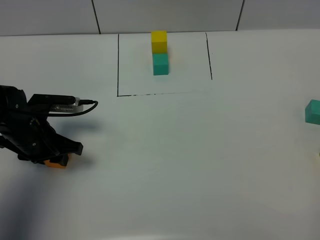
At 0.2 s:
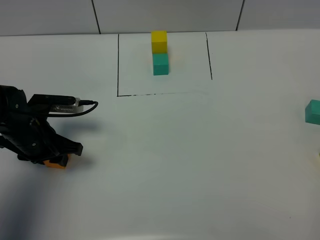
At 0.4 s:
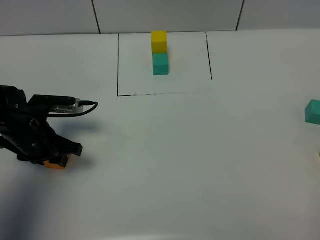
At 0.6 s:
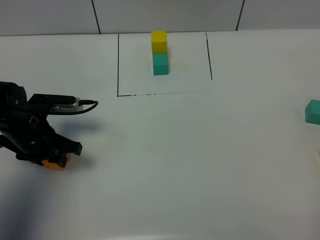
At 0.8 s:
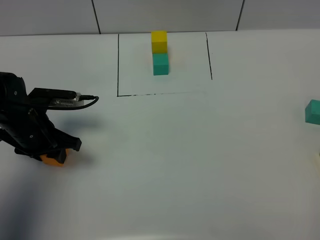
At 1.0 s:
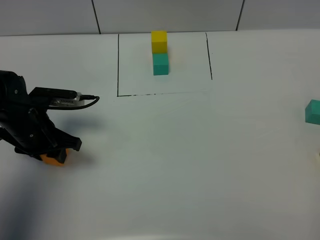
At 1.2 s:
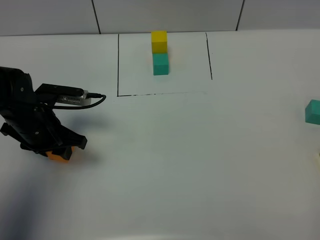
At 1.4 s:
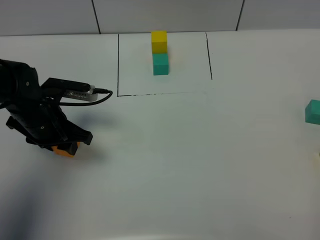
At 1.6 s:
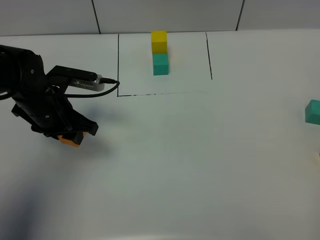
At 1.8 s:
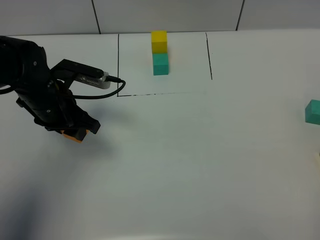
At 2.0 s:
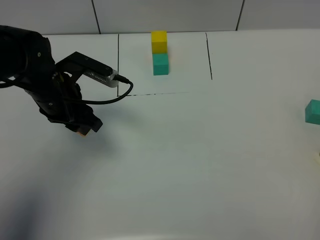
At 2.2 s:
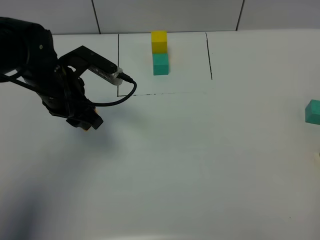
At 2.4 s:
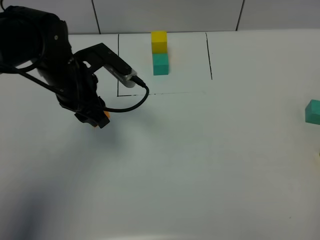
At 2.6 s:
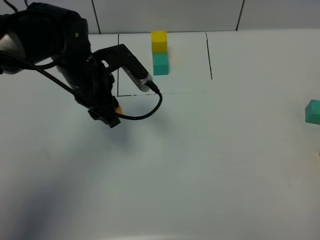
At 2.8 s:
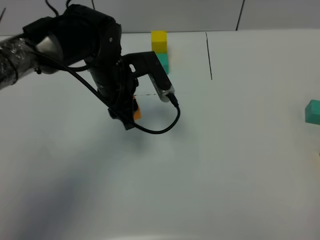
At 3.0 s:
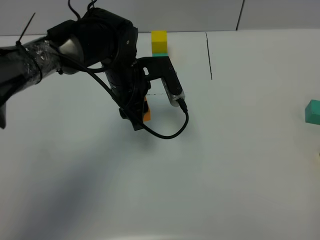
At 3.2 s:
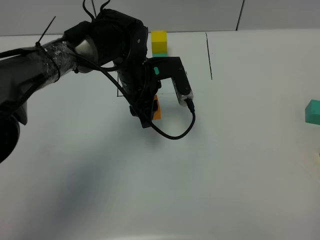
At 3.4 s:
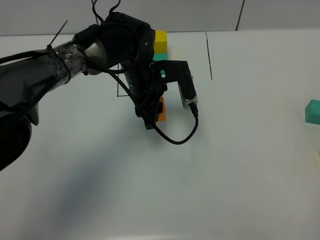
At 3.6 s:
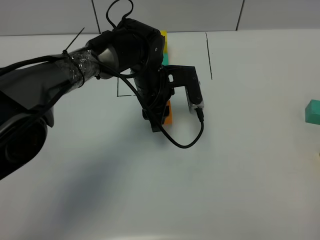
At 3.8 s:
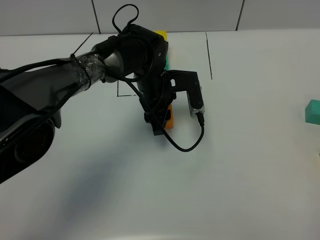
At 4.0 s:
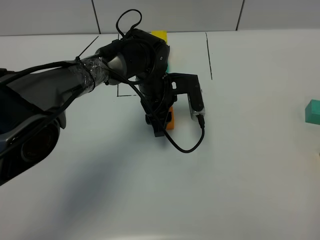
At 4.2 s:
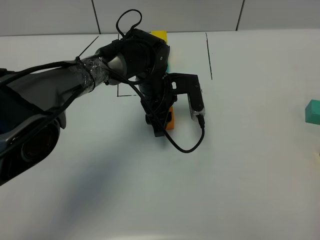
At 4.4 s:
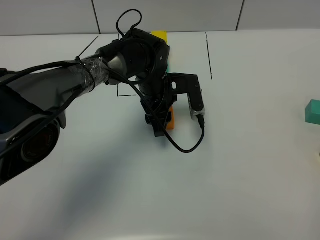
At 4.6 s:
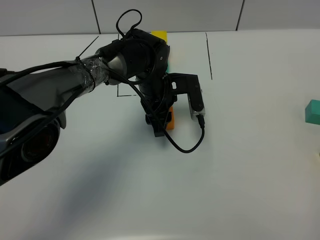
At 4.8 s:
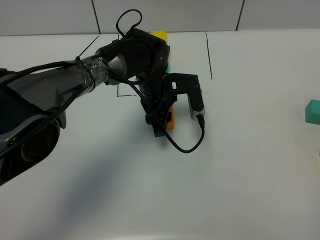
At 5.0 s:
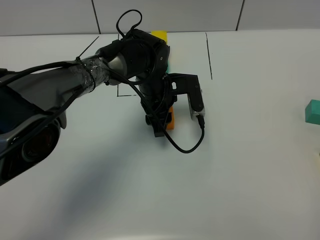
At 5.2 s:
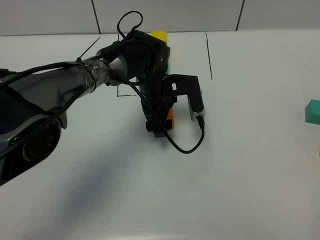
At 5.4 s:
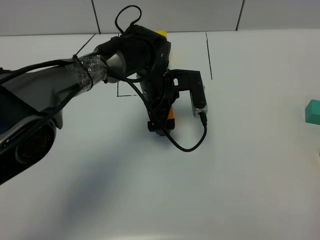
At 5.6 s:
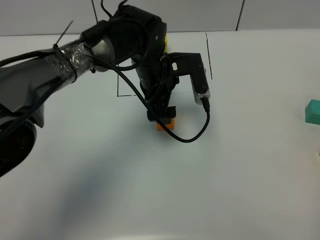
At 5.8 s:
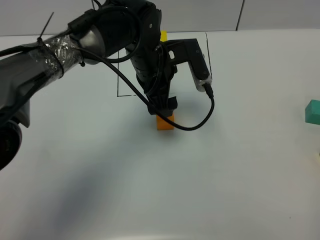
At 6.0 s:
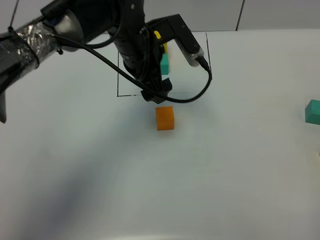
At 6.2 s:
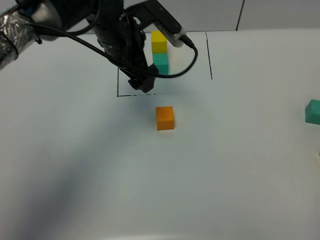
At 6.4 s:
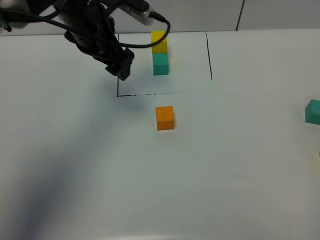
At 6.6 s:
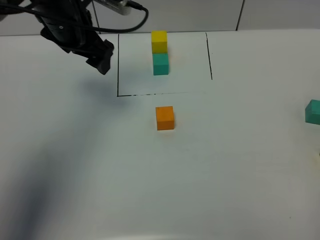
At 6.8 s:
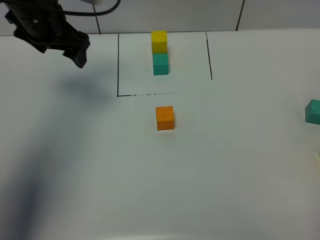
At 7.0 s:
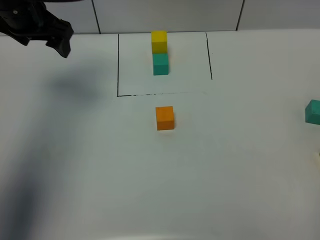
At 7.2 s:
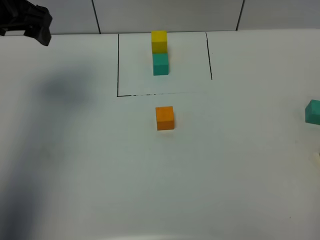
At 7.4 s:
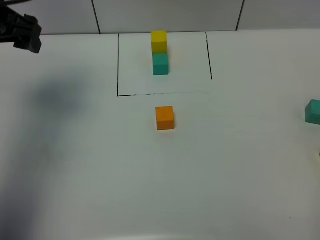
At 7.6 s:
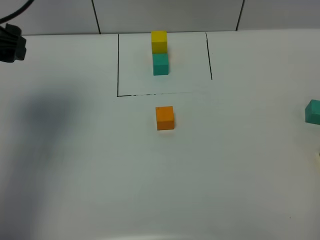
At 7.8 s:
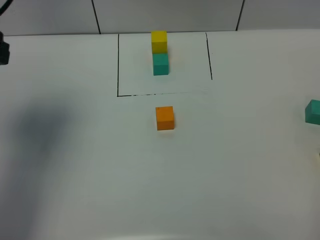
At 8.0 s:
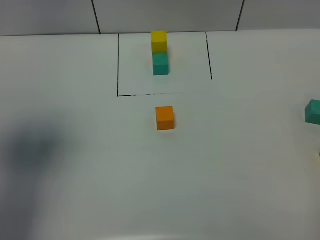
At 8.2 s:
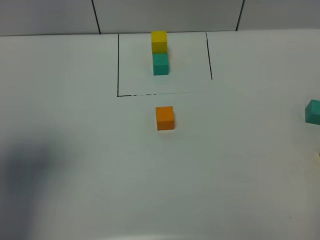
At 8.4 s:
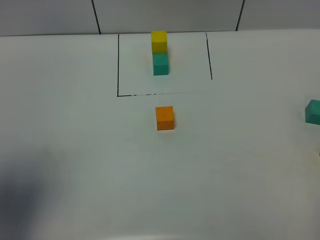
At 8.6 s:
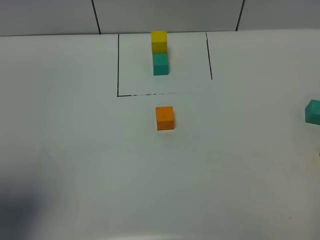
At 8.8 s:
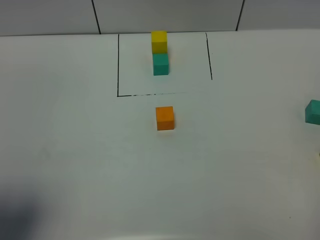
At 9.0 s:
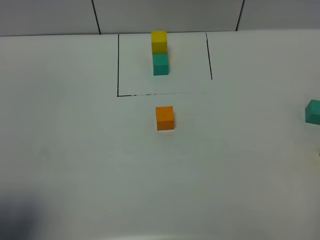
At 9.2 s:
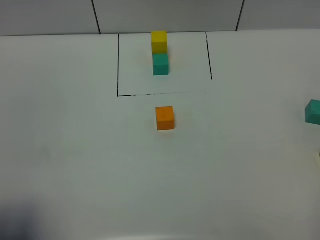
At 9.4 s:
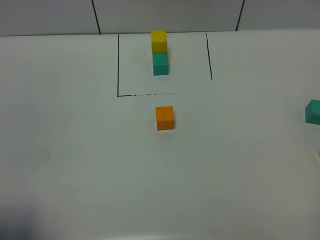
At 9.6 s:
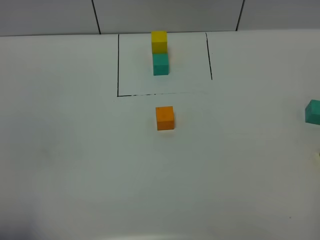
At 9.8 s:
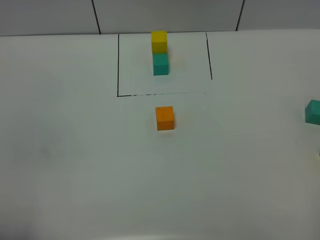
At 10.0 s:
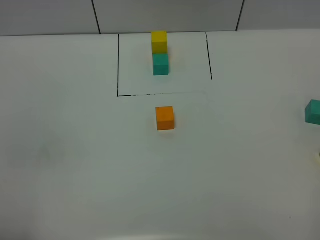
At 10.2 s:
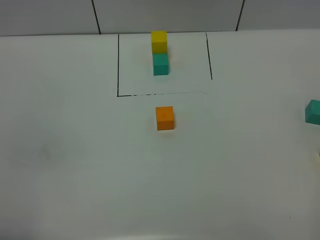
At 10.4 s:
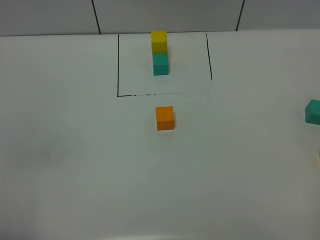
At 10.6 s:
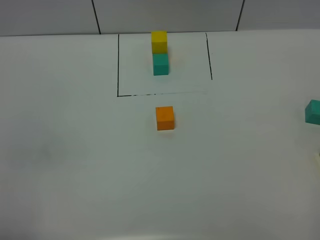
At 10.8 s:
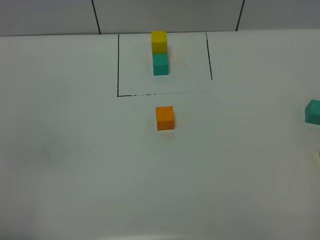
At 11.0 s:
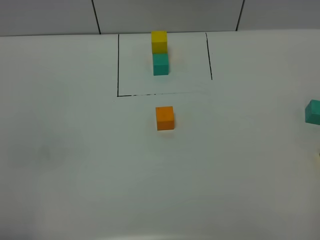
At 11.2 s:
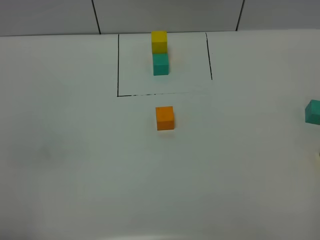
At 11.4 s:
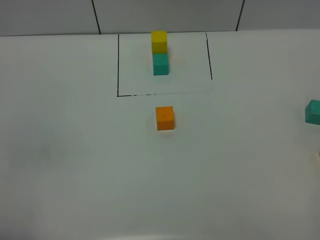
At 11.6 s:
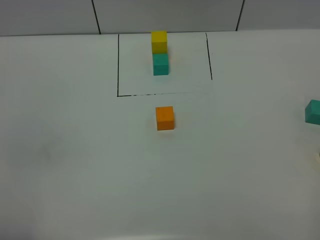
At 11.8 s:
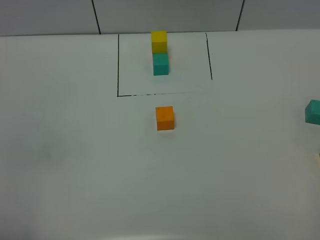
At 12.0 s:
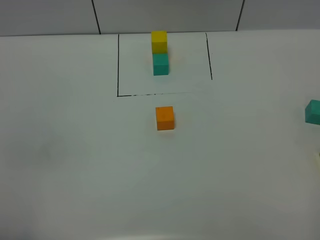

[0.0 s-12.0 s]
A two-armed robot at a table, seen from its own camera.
Task of the whole recording: According to the building block template in front, assemble the scattered blocks together.
Step, 0.0 to 5.0 s: Put the orange build block in the center of the table.
0.0 to 1.6 s: The left gripper travels upward by some 5 cm.
1.6 to 3.0 s: The left gripper goes about 15 cm to the right and forward.
3.0 to 4.4 s: The left gripper is displaced downward by some 5 cm.
4.4 to 6.0 s: The left gripper is displaced upward by some 10 cm, and opens up.
6.0 to 7.6 s: The left gripper moves to the left and upward, approximately 25 cm.
7.6 to 9.0 s: The left gripper is displaced backward by some 25 cm.
9.0 to 10.4 s: The left gripper goes about 10 cm backward and downward.
10.4 to 12.0 s: Both grippers stay put.

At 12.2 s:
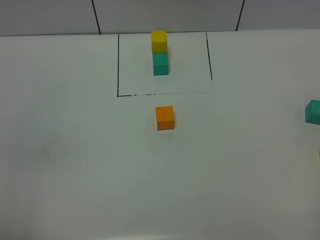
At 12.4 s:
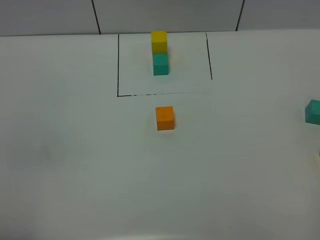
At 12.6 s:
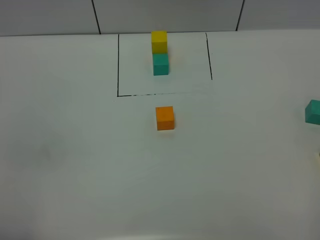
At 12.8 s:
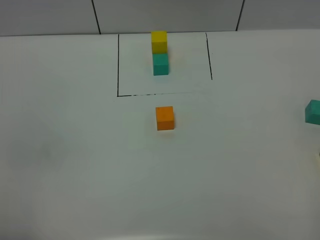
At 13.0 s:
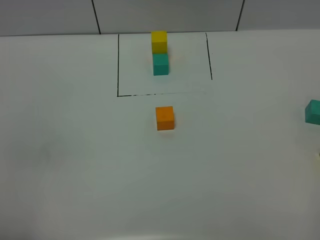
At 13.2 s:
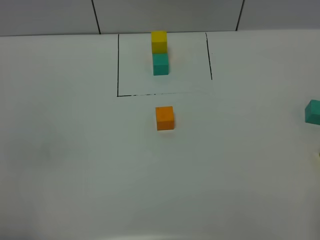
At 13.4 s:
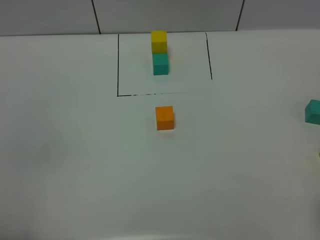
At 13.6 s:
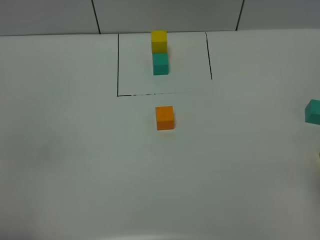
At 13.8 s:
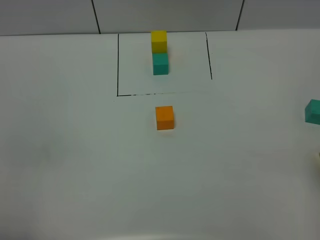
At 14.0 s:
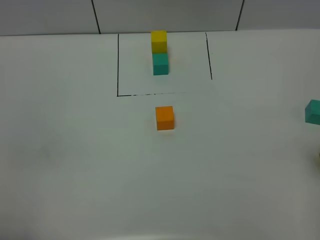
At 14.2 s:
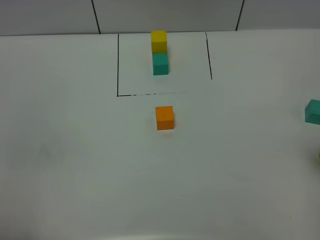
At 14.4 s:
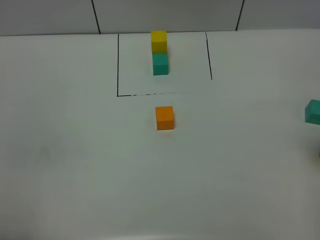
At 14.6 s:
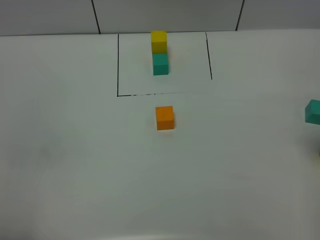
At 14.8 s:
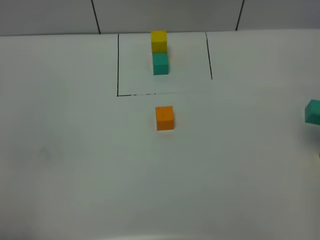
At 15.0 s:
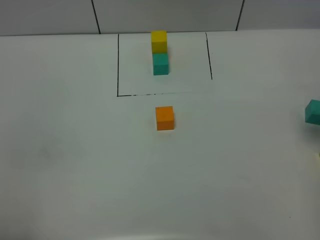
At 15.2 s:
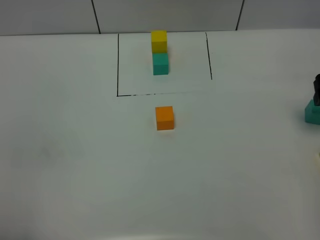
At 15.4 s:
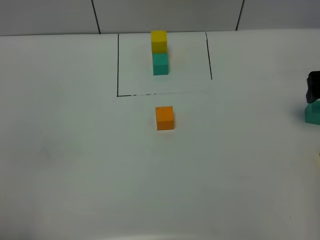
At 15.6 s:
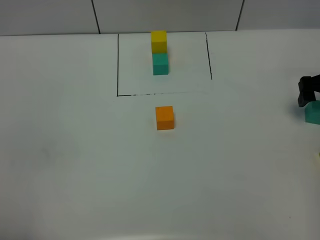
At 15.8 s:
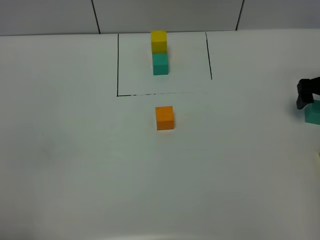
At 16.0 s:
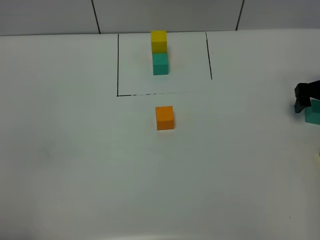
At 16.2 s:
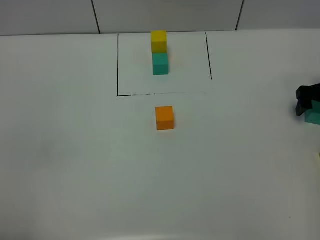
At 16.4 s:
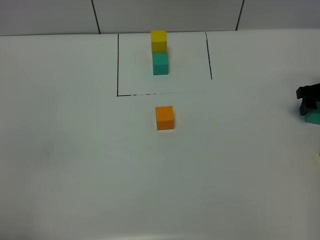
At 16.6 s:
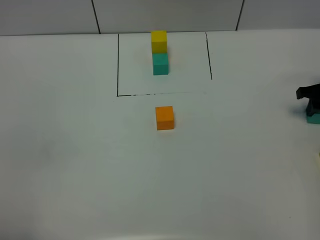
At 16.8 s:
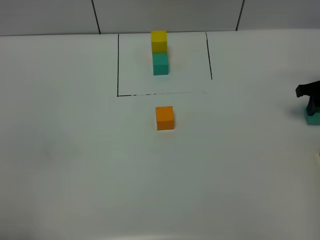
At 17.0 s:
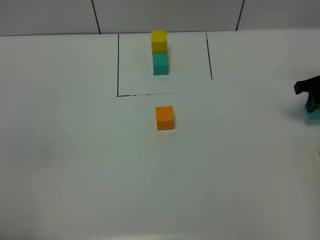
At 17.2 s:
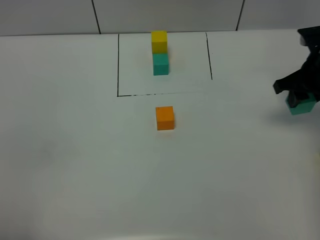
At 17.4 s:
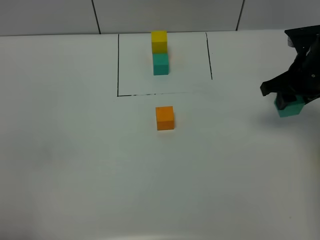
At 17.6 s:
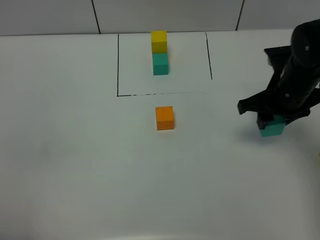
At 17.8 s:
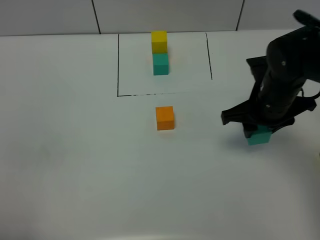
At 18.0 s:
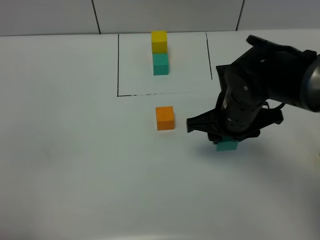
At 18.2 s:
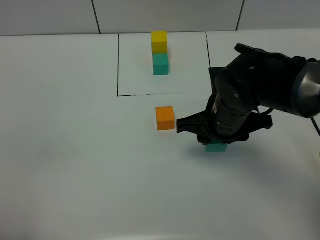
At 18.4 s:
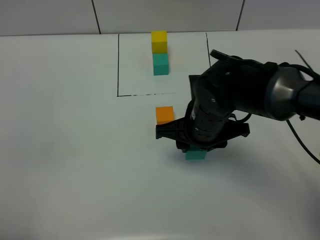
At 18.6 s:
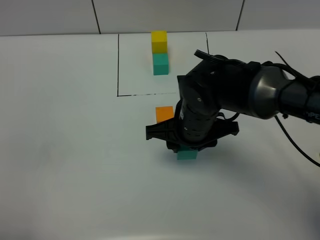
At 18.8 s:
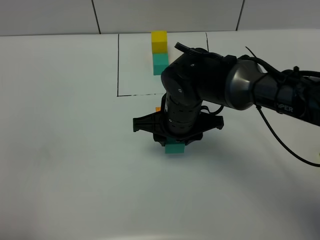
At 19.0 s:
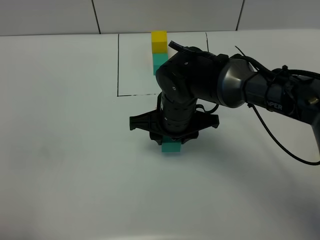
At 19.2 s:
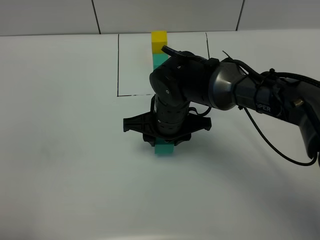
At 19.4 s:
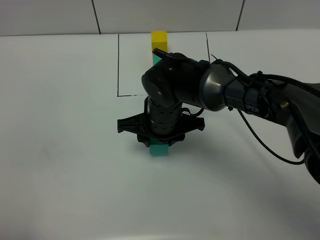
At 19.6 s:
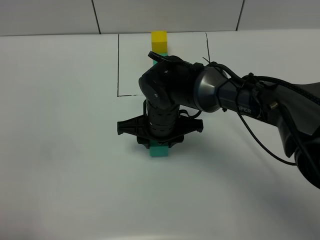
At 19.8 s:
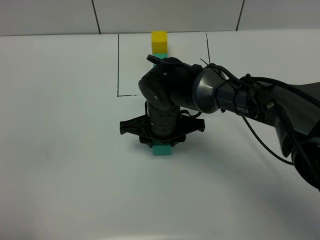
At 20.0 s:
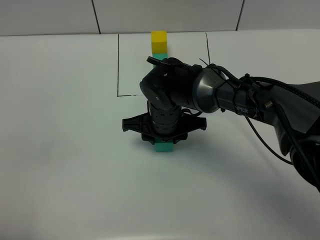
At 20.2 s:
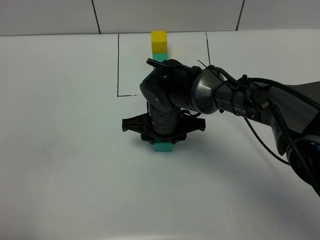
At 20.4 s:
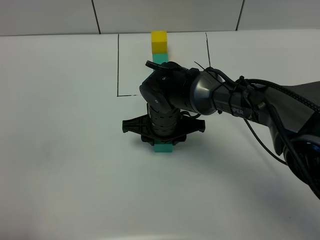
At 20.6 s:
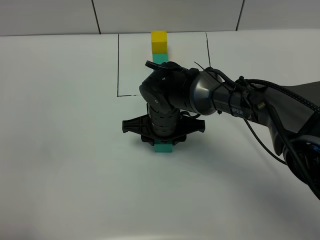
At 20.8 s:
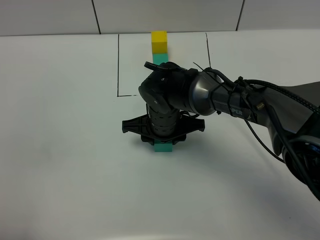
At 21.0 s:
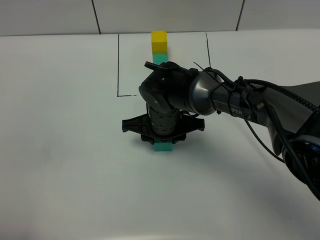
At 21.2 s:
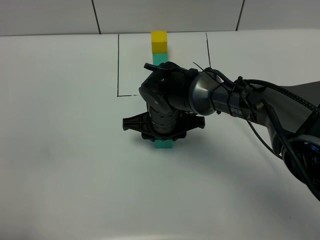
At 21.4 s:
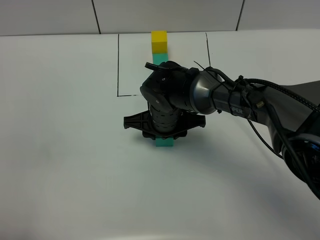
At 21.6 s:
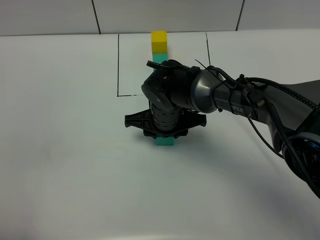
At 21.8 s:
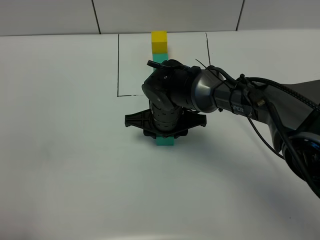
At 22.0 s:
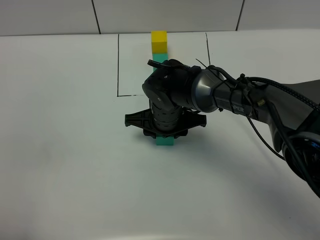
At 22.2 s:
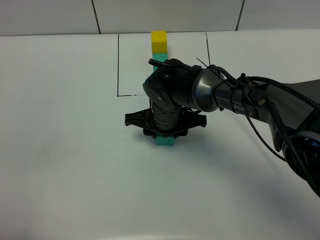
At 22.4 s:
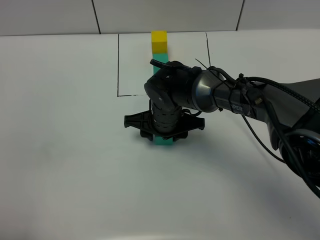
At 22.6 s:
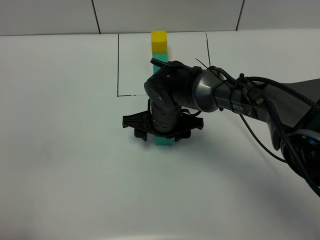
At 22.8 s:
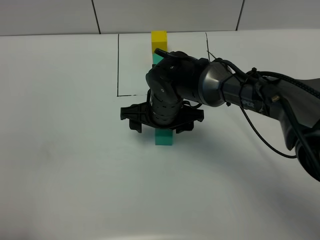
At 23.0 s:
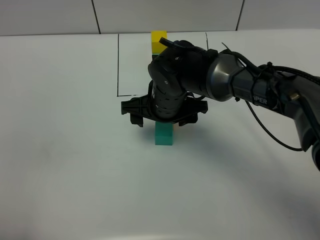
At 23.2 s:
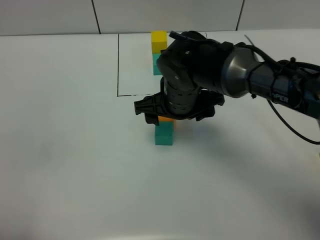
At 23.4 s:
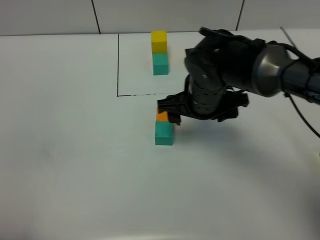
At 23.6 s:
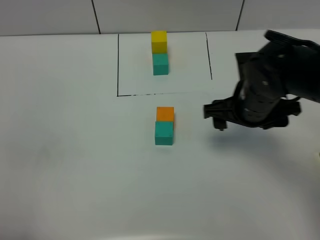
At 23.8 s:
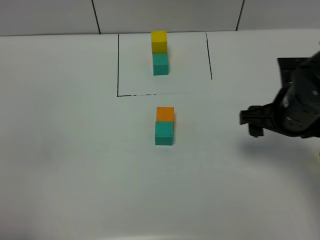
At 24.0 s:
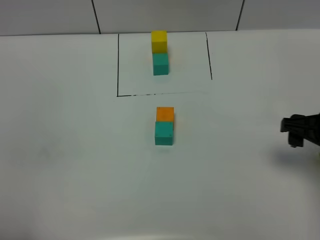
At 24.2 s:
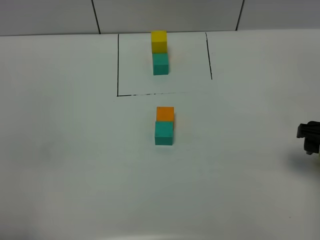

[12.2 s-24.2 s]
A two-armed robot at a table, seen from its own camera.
Task of the whole recording: According to the building block template in front, assemble the scattered blocks together.
Step, 12.2 to 22.4 s: Put the green build block on the behind of the orange build block.
15.2 to 16.6 s: The right gripper heads downward, covering some 10 cm, and closes up.
16.6 to 18.2 s: The right gripper is displaced to the left and backward by some 30 cm.
18.2 to 19.8 s: The right gripper travels to the left by about 10 cm.
19.8 to 21.2 s: The grippers stay close to where they were, moving slightly.
21.2 to 22.6 s: The right gripper opens its fingers.
22.6 to 24.2 s: The right gripper shifts roughly 30 cm to the right.
